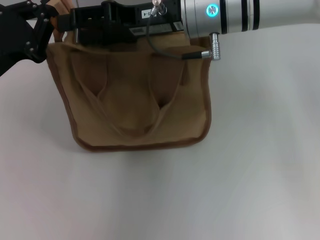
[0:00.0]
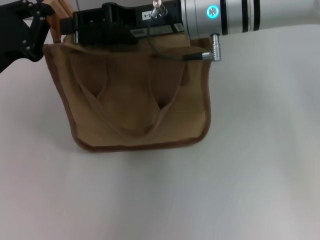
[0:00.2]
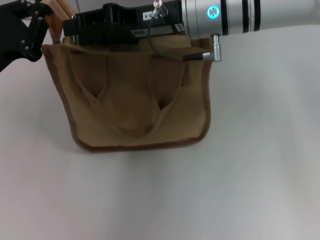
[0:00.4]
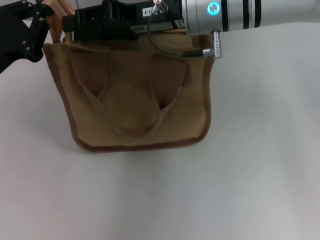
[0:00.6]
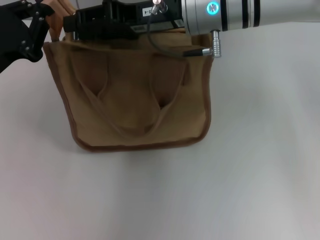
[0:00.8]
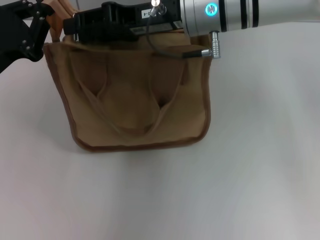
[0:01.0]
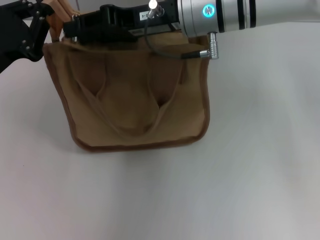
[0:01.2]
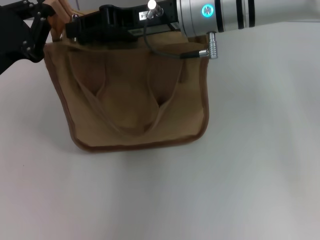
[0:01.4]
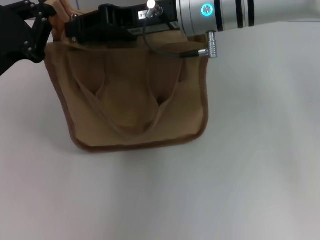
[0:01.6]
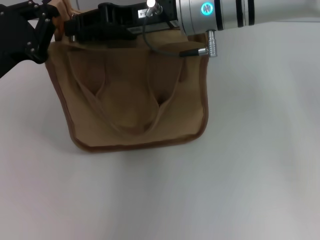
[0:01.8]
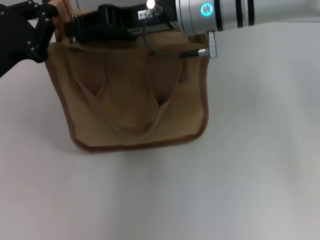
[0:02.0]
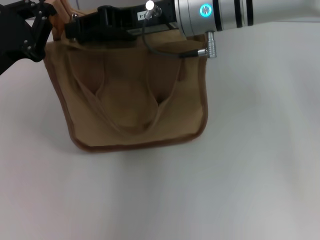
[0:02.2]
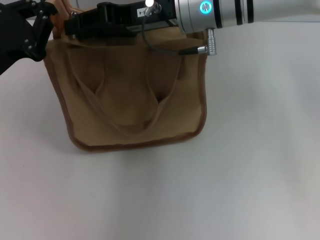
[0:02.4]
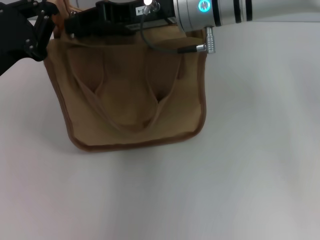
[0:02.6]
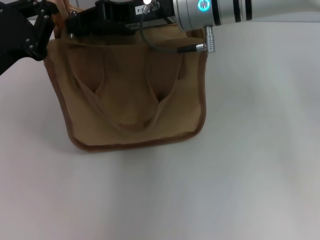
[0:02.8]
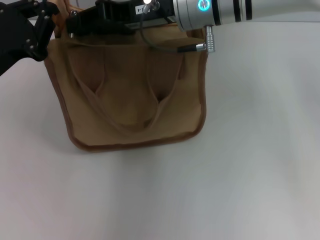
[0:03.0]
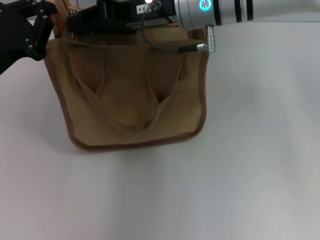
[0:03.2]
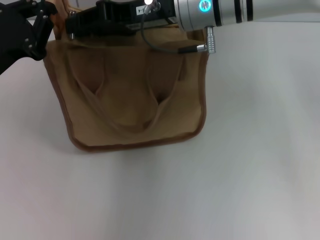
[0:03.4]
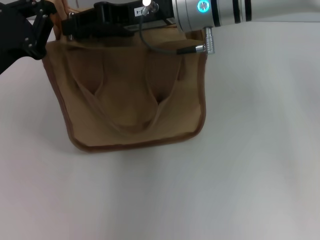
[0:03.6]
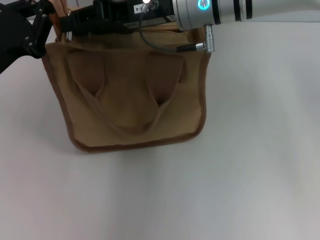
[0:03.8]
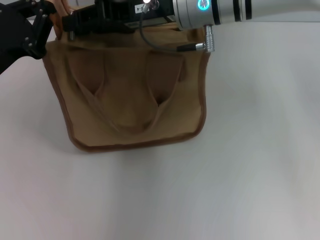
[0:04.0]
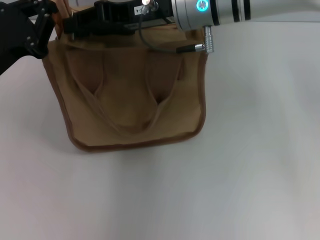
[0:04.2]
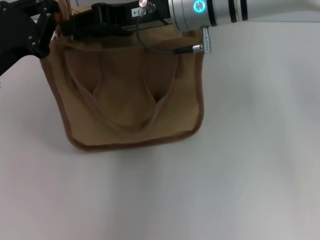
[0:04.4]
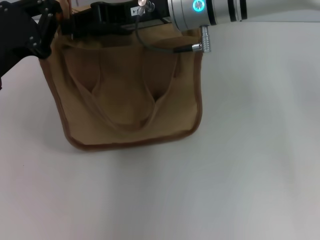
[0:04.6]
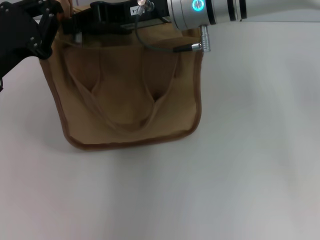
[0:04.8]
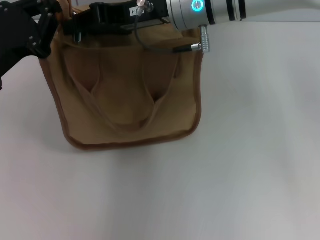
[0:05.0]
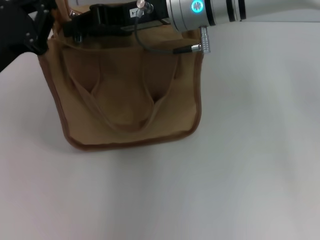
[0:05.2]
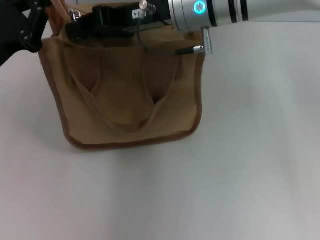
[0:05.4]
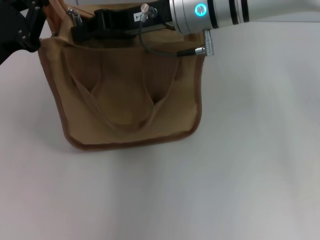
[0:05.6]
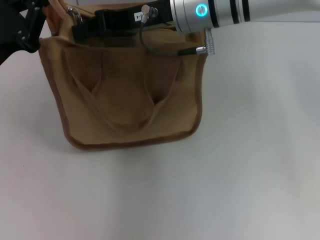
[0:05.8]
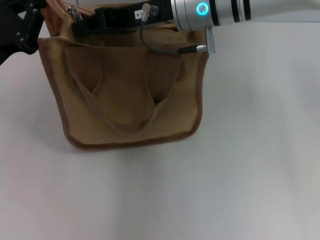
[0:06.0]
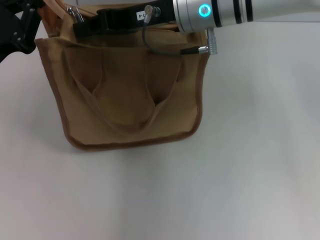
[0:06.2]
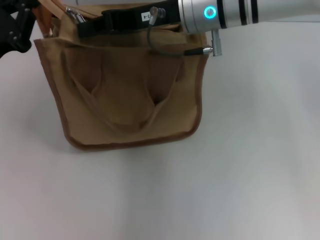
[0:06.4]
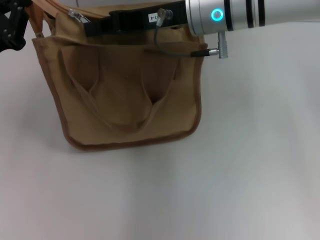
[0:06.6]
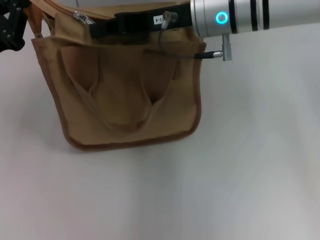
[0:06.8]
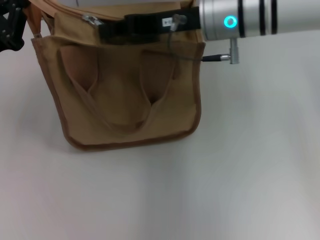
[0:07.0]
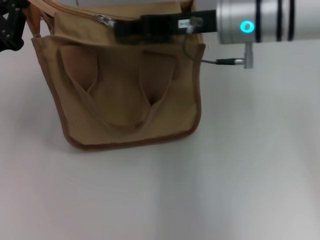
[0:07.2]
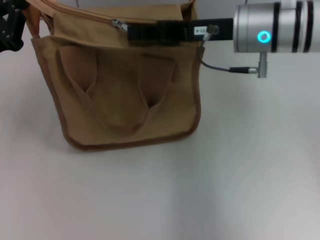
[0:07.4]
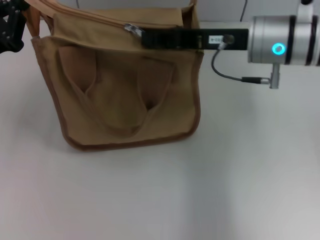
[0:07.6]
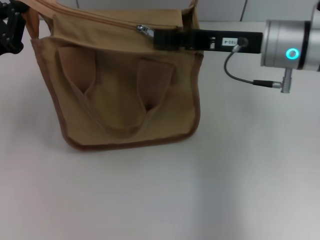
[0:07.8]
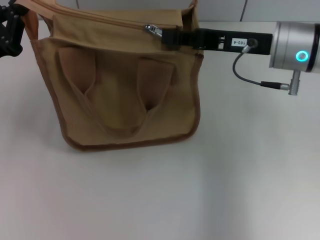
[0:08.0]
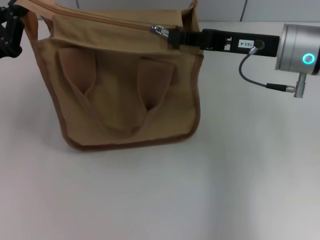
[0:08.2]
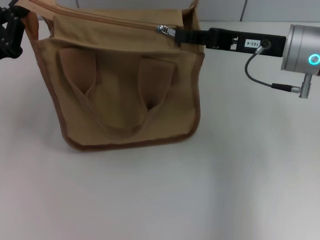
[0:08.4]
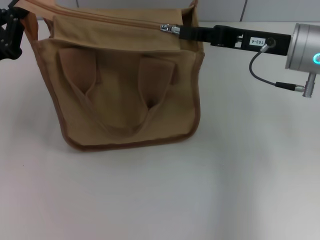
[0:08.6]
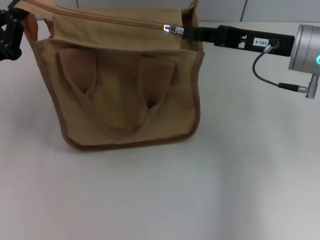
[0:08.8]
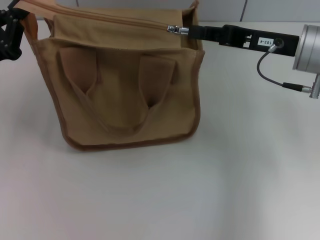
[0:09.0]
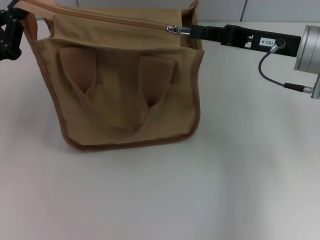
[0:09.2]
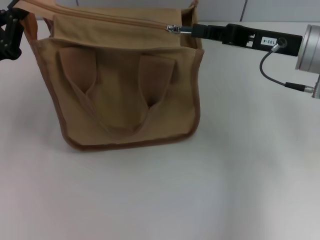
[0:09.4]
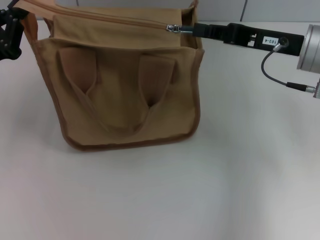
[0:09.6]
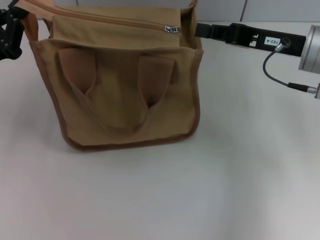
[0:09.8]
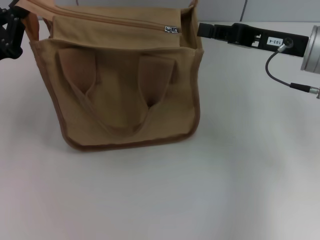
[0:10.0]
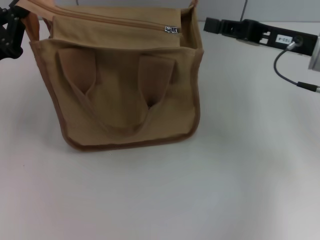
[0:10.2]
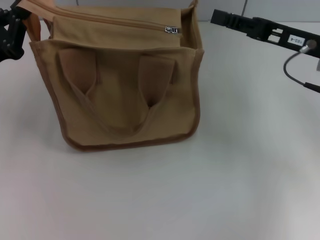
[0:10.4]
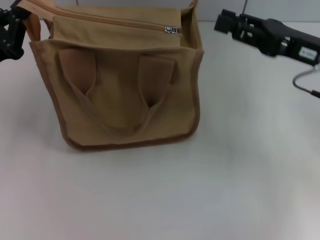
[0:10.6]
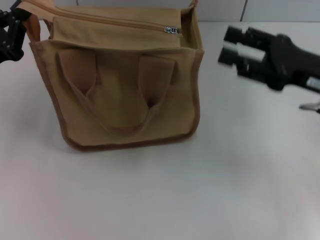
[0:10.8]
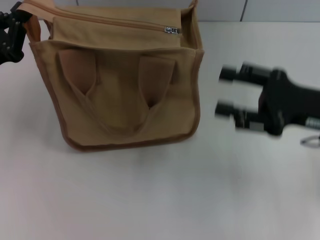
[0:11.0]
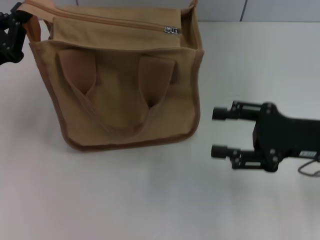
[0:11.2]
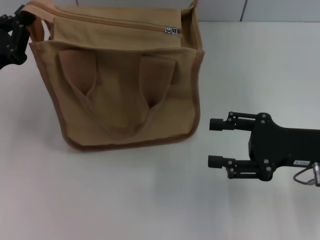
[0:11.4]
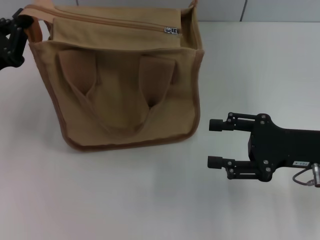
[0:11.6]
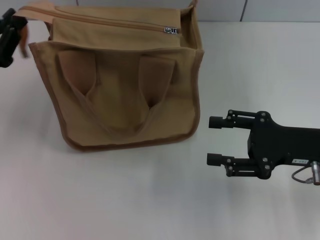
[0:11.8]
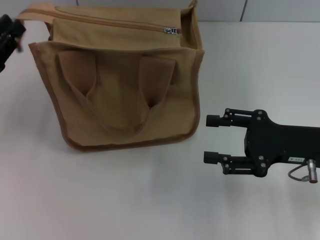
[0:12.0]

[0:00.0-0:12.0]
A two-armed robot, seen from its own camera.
Step, 0.0 to 9.8 s: Pull up the zipper with your right hand.
Step, 10.0 to 12.0 s: Grab the zipper with your left hand.
0.0 to 1.6 s: The right gripper closes up.
1.6 to 4.4 s: Both grippers stay about where they are.
4.4 to 6.0 s: The right gripper closes.
6.0 to 7.6 s: The right gripper shifts about 10 cm to the right.
7.6 to 9.0 s: The right gripper is displaced to the right by roughly 5 cm.
9.0 to 10.4 s: The grippers make only small movements.
10.4 to 12.0 s: The right gripper shifts about 10 cm backward and downward, and opens.

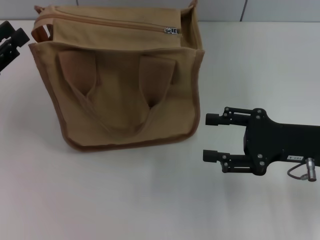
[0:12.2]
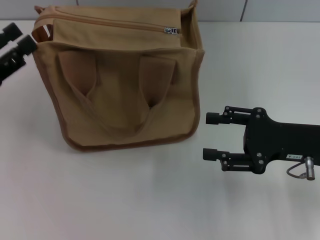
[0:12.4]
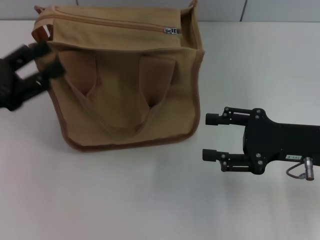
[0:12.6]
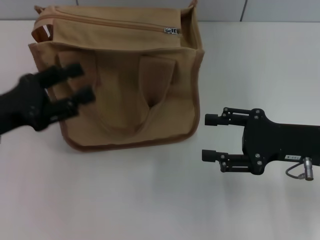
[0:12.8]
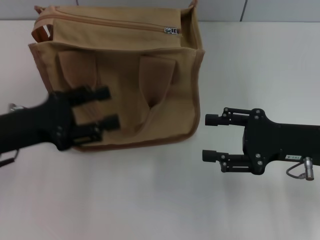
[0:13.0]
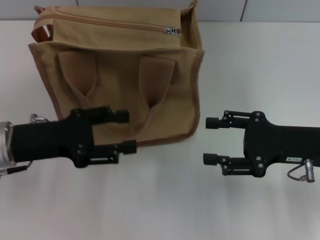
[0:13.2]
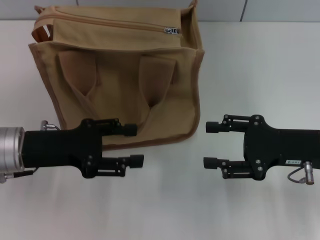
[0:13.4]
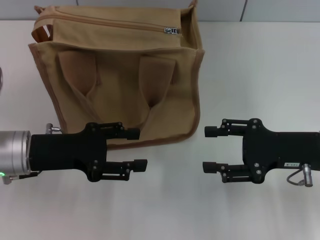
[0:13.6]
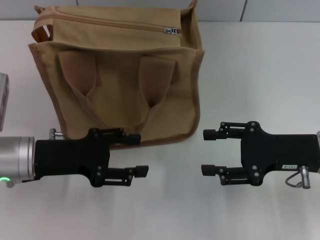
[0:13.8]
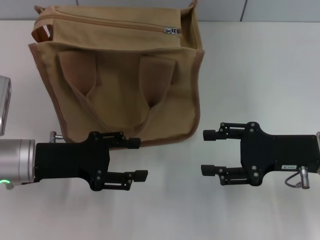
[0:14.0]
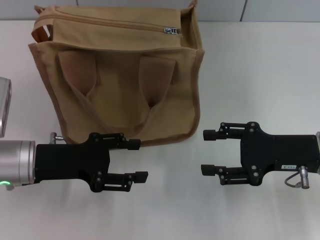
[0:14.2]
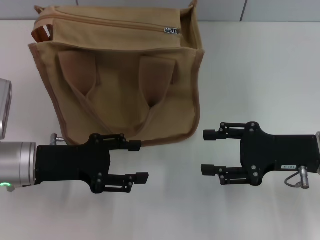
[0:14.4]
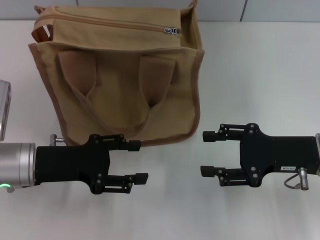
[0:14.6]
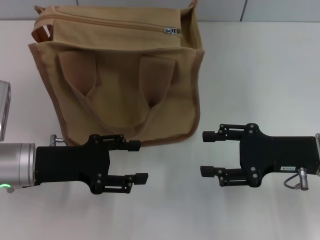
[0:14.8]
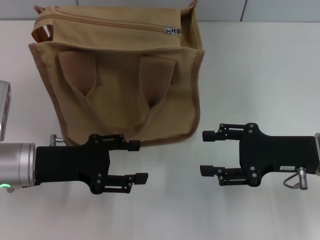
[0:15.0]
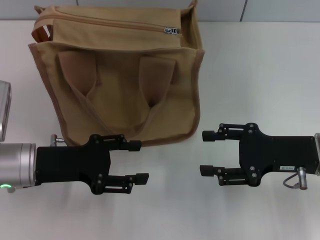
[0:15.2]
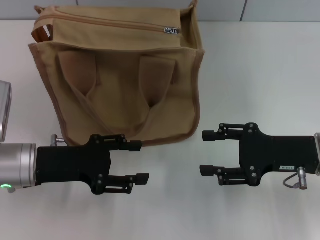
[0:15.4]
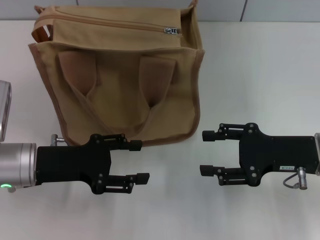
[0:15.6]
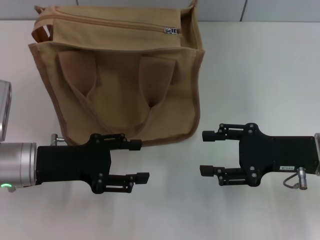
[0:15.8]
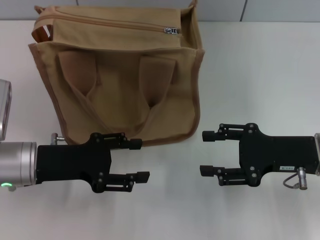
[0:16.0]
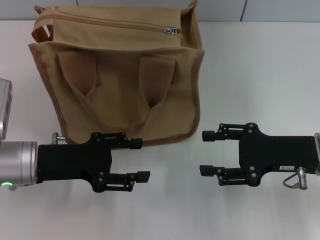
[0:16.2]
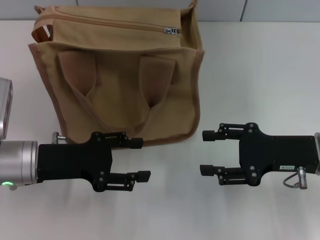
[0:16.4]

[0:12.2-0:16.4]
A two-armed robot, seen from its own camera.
12.2 to 13.6 s: The left gripper heads to the right, covering roughly 10 cm, and opens its fingers.
13.6 to 15.0 s: The grippers move only a little.
15.0 to 16.4 s: Neither gripper changes place.

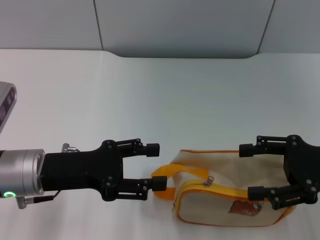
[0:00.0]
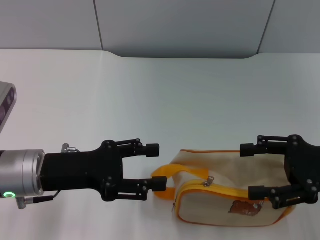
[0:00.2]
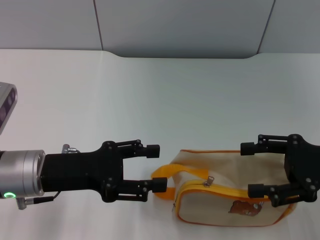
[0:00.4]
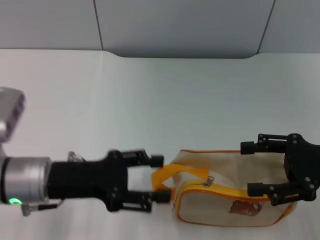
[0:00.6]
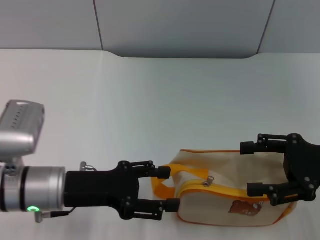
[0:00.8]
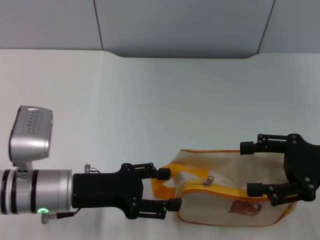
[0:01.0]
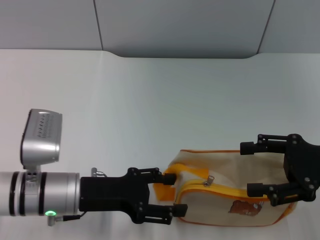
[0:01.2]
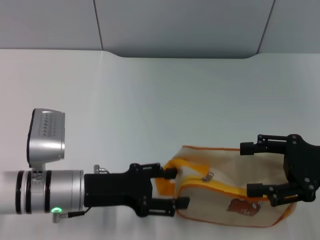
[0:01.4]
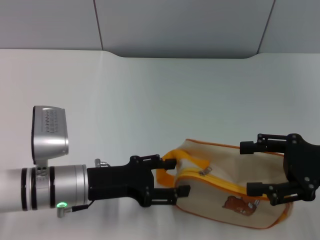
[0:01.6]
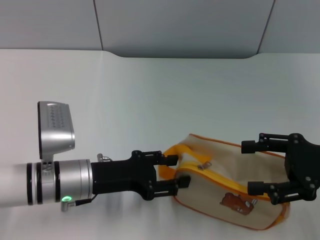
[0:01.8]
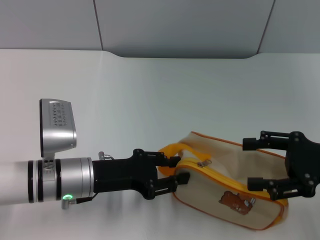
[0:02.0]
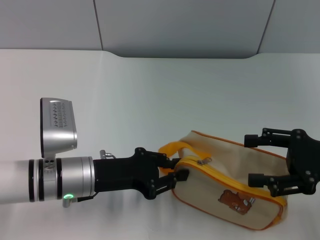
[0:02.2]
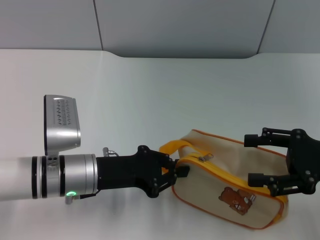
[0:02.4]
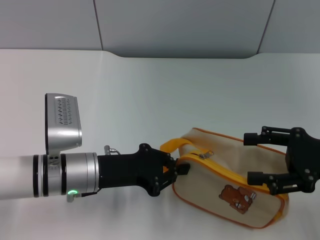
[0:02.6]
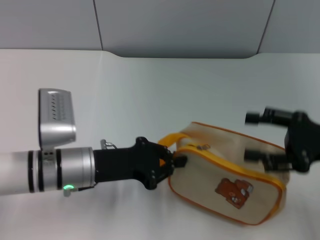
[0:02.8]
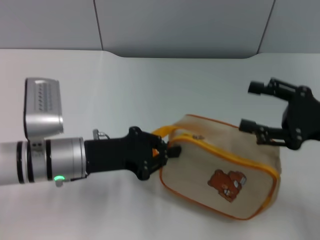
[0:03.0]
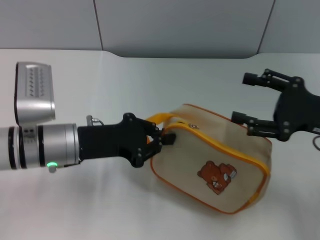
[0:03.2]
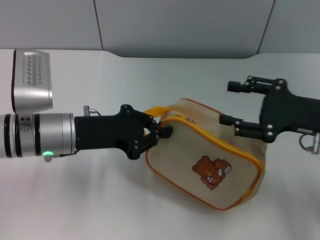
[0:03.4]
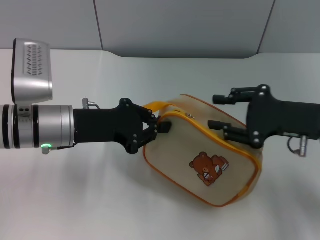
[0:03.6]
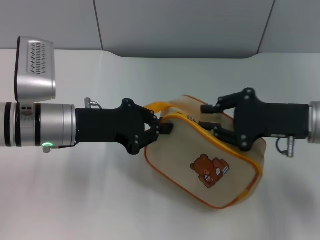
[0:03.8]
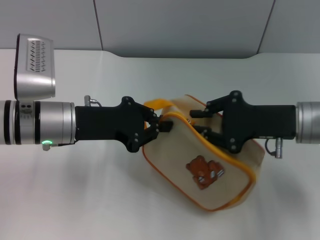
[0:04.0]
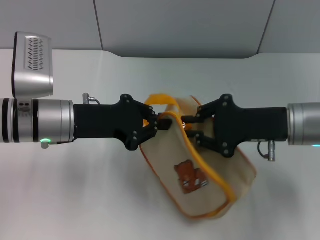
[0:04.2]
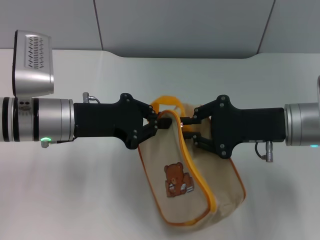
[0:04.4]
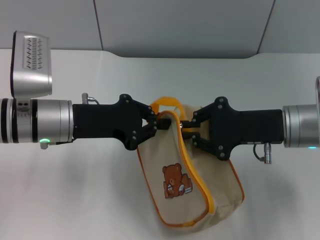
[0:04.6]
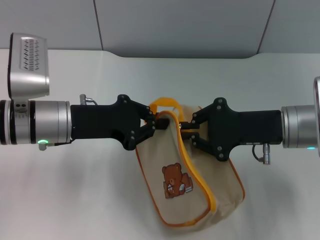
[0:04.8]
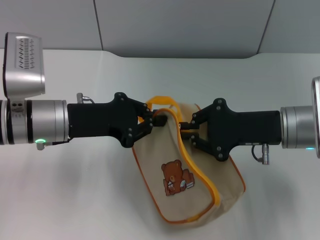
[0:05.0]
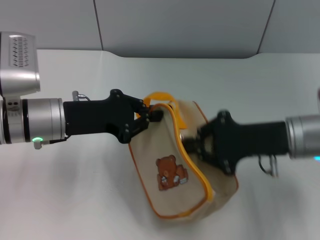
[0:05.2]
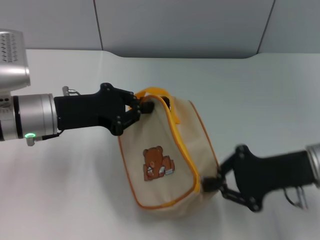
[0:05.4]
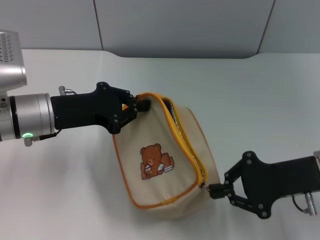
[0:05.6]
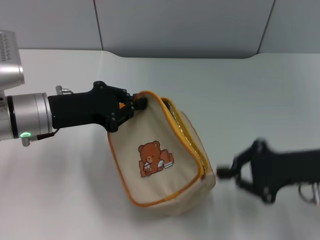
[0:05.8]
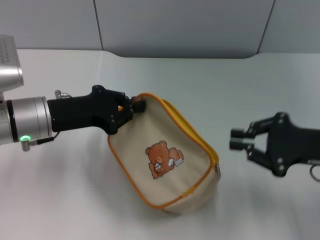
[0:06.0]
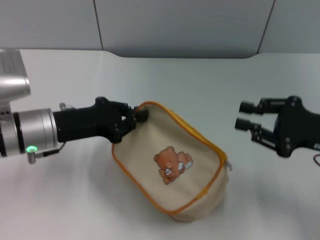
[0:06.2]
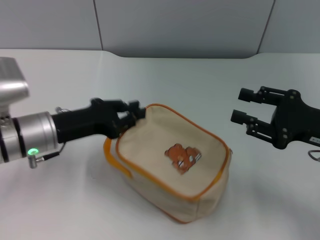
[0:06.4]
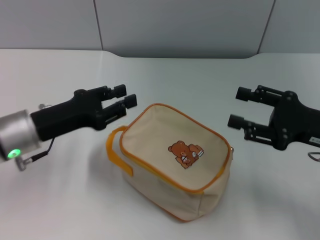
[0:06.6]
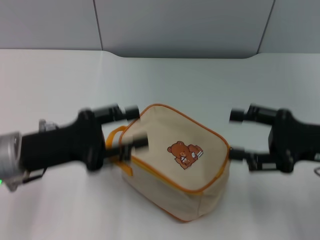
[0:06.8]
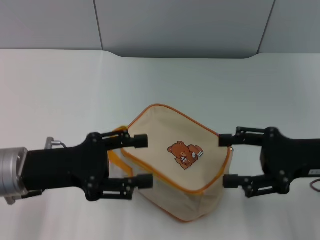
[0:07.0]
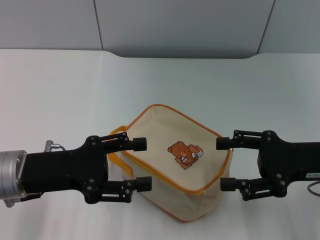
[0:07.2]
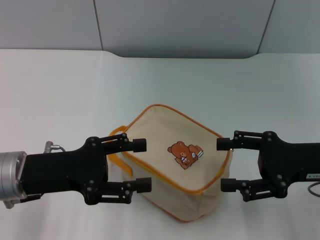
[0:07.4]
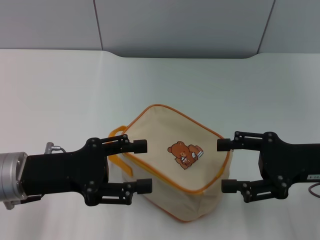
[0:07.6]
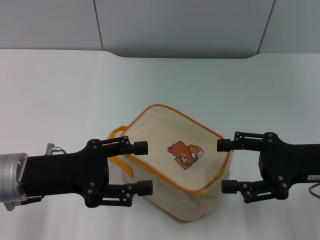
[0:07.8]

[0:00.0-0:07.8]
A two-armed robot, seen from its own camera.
Step, 0.0 to 3.4 s: Pick up the bag with left gripper.
Step, 3.6 to 5.8 s: Unzip the zipper of bag with right gripper.
Step, 6.2 to 6.6 s: Place the bag on the table with left gripper.
0.0 to 1.6 s: The left gripper shifts roughly 5 cm downward.
1.6 to 3.2 s: The left gripper changes place by some 5 cm, and closes.
3.2 to 4.6 s: The right gripper travels to the left by about 10 cm, and closes.
4.6 to 6.2 s: The right gripper travels to the right by approximately 10 cm.
6.2 to 7.8 s: The right gripper opens up. Meanwhile the left gripper travels backward by roughly 5 cm, and opens its fingers.
